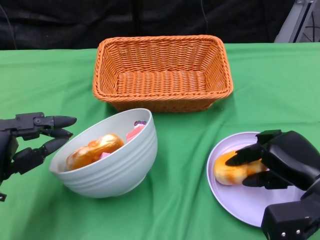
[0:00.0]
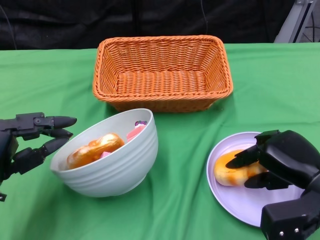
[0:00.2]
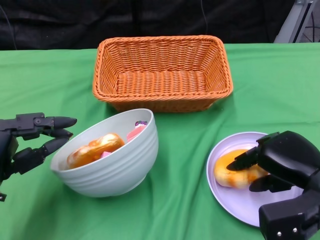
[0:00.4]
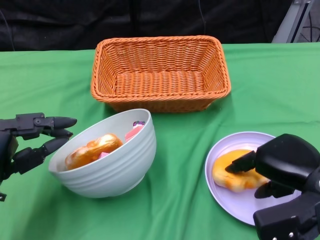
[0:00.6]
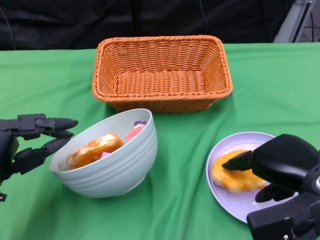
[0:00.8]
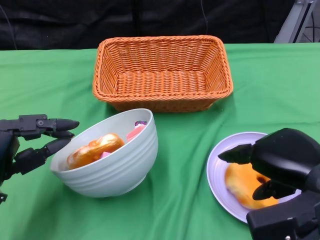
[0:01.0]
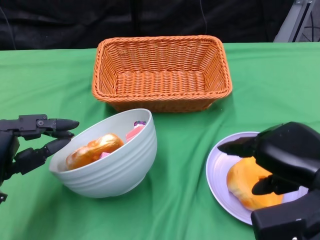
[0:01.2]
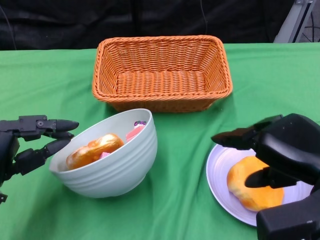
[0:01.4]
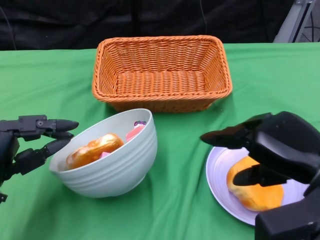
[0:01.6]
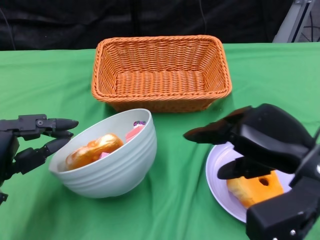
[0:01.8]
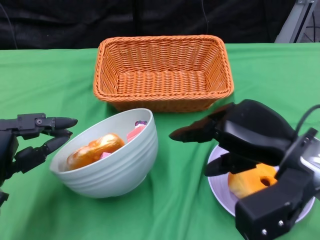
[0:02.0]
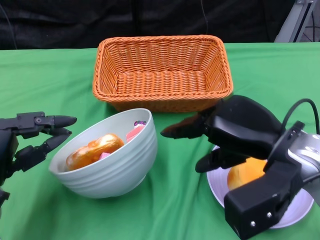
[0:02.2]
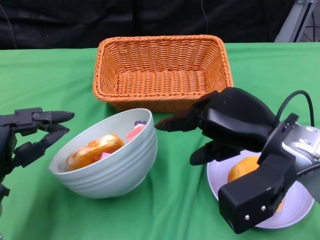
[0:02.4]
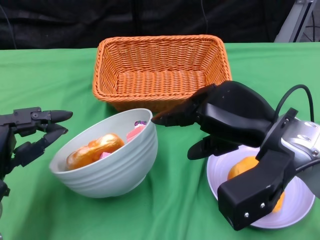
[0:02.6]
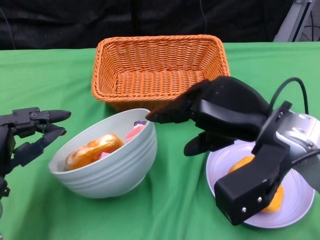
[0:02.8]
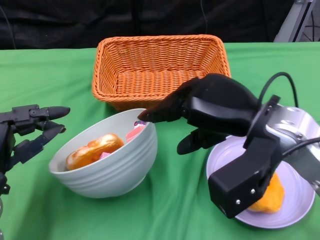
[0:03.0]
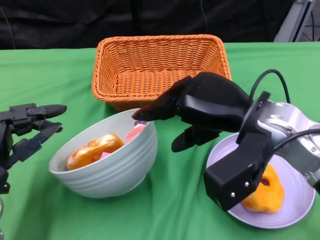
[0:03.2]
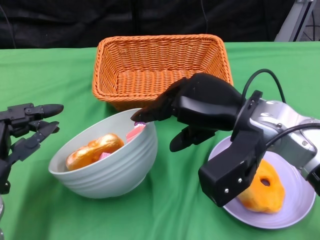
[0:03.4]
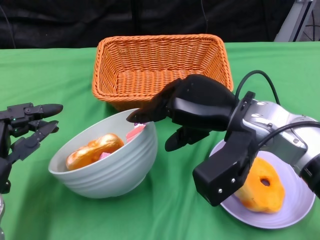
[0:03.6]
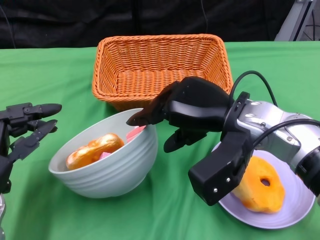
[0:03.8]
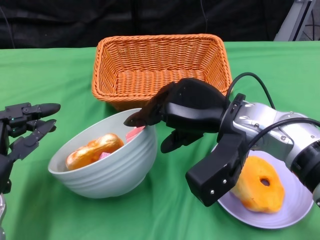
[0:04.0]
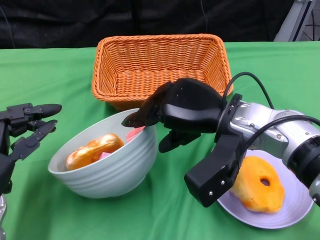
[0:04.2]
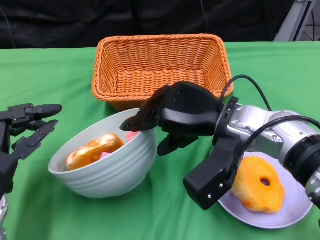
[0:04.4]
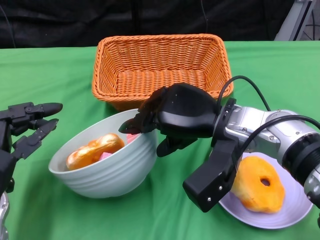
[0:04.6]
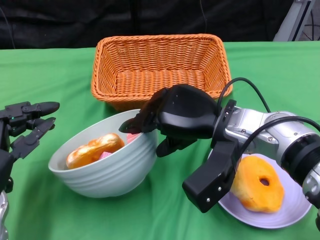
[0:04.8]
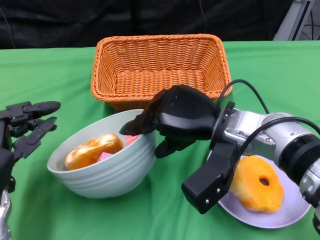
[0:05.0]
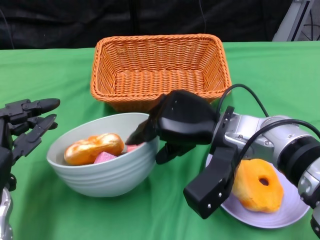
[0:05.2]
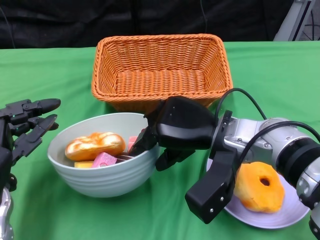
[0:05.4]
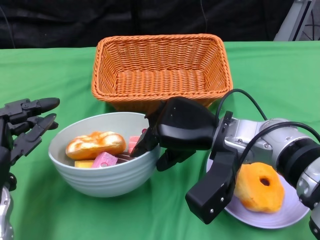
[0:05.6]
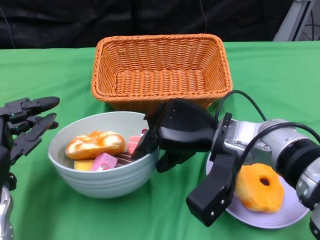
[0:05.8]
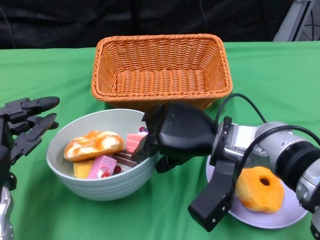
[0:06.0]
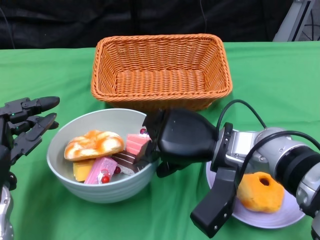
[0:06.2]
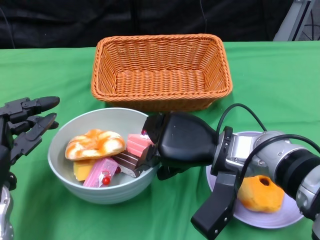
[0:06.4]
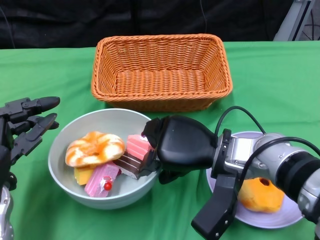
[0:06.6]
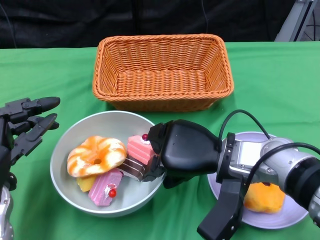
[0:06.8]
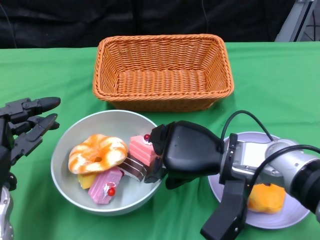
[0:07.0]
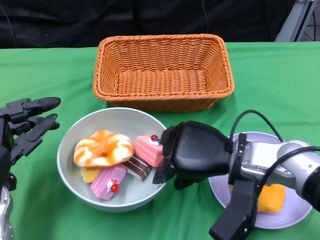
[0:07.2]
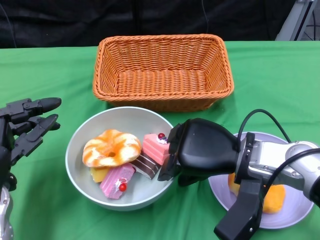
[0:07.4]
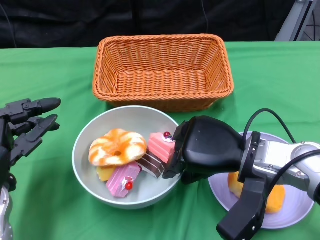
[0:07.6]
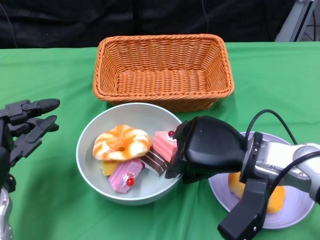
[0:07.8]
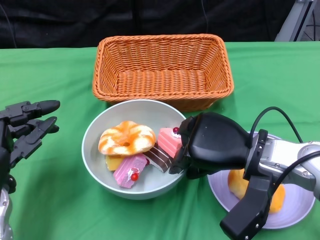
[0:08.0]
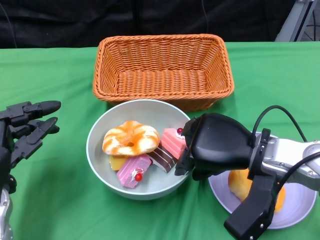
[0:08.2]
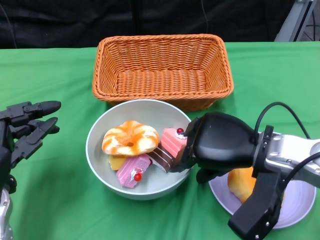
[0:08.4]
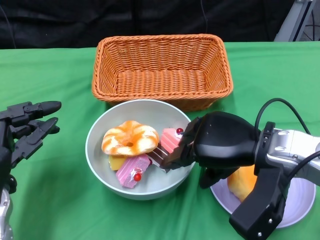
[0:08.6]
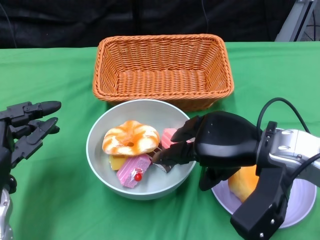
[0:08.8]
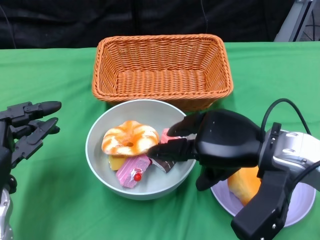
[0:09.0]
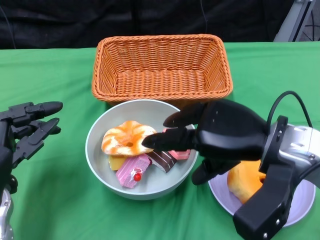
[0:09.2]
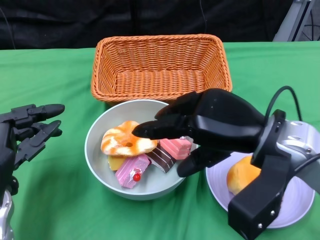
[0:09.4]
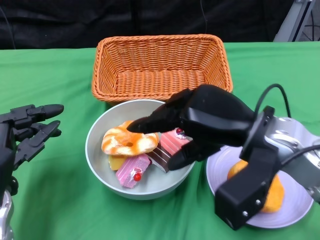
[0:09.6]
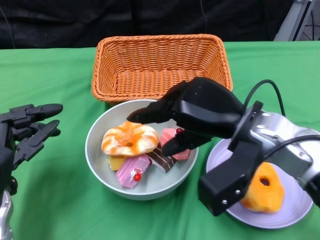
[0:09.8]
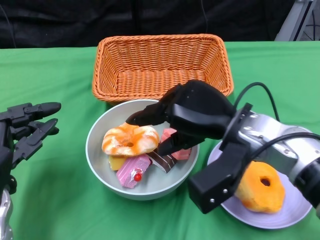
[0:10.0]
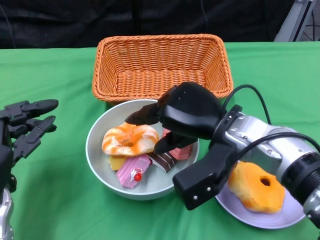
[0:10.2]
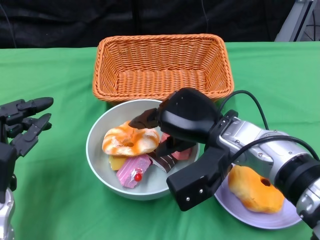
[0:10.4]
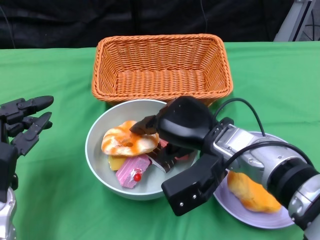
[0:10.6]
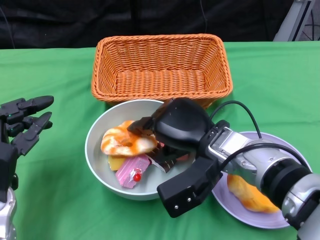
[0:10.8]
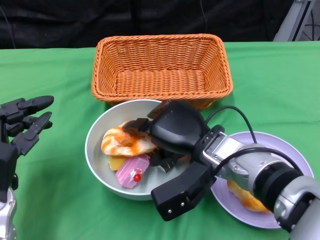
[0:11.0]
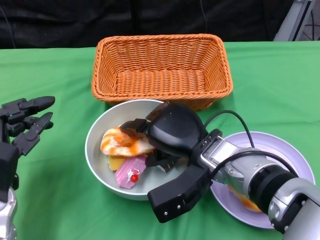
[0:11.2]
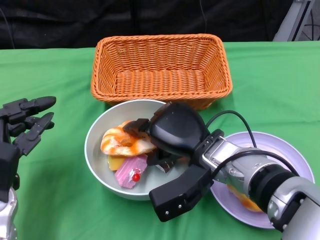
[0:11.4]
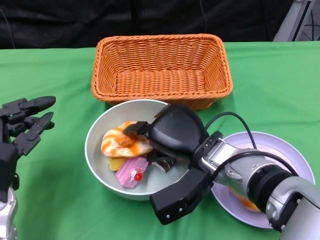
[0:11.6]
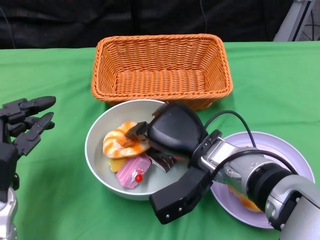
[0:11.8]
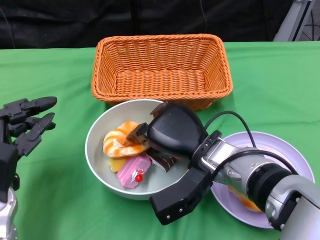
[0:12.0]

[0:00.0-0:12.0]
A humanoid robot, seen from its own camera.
0:00.0 to 0:01.6: The right hand goes about 10 cm upward.
0:01.6 to 0:03.0: The right hand travels to the left and forward by roughly 10 cm.
0:03.0 to 0:04.4: The right hand shifts by some 5 cm.
0:09.0 to 0:10.4: The right hand goes some 5 cm to the left.

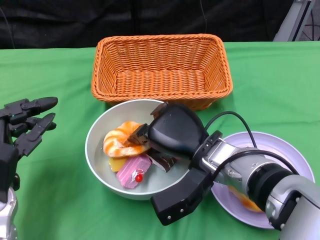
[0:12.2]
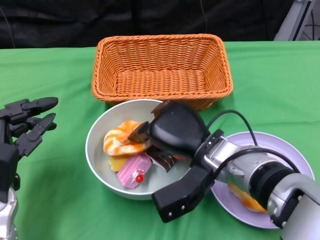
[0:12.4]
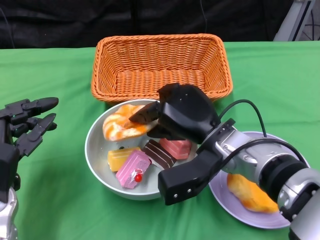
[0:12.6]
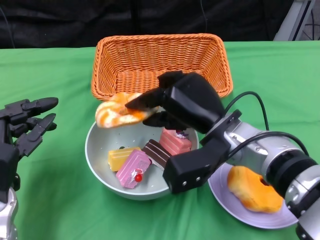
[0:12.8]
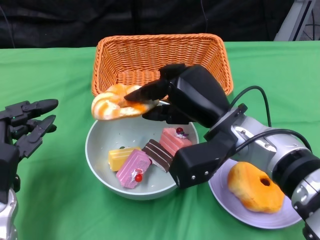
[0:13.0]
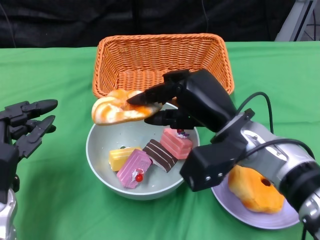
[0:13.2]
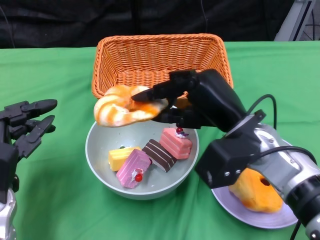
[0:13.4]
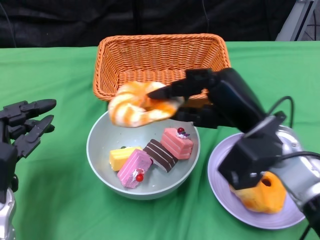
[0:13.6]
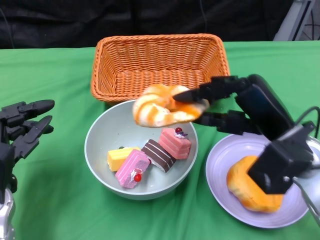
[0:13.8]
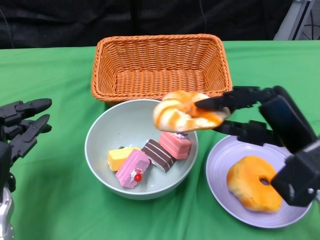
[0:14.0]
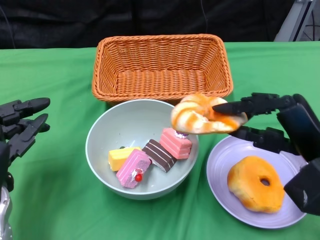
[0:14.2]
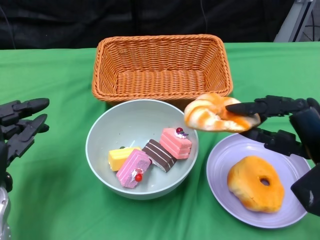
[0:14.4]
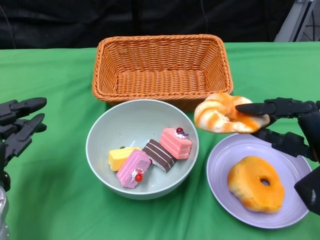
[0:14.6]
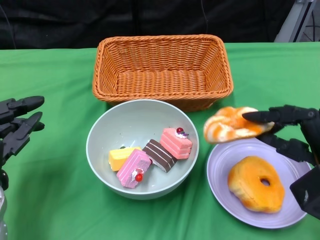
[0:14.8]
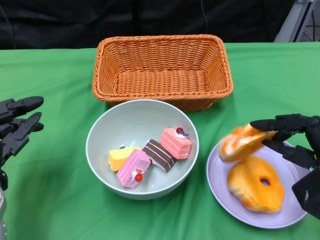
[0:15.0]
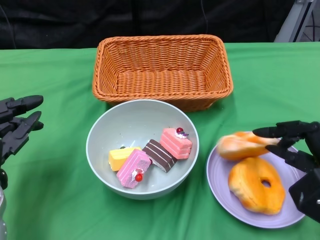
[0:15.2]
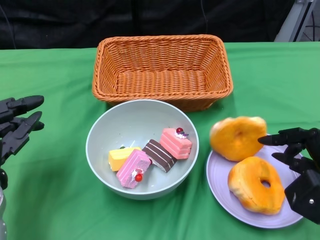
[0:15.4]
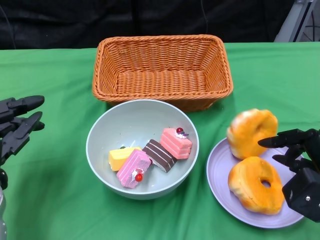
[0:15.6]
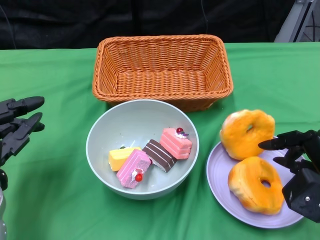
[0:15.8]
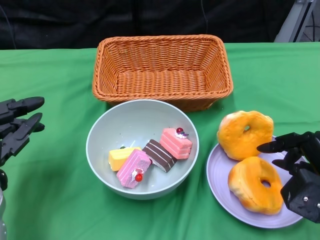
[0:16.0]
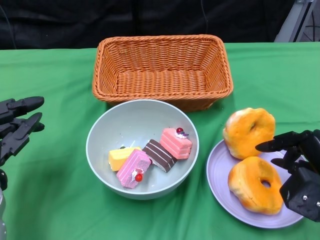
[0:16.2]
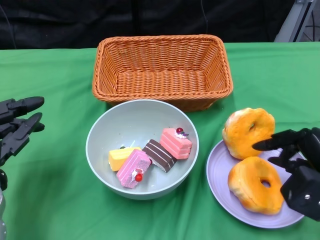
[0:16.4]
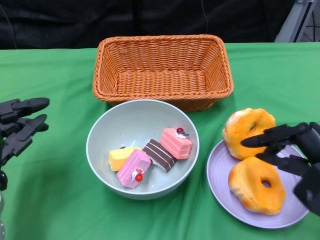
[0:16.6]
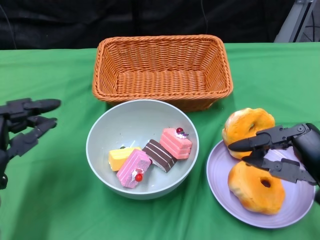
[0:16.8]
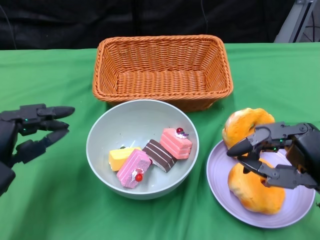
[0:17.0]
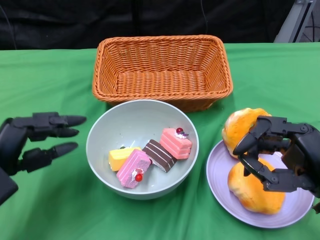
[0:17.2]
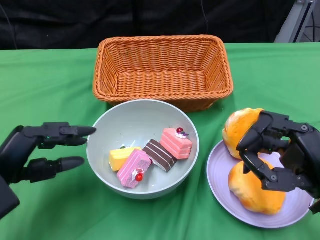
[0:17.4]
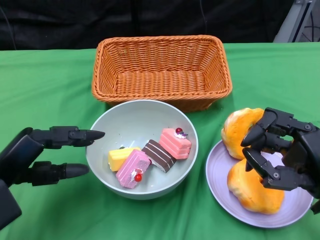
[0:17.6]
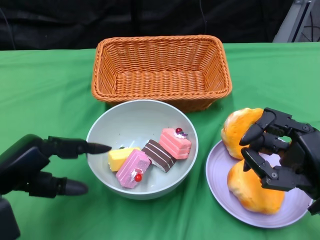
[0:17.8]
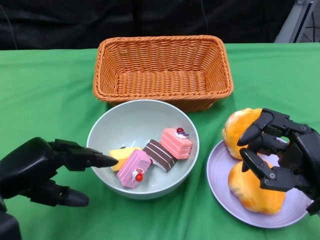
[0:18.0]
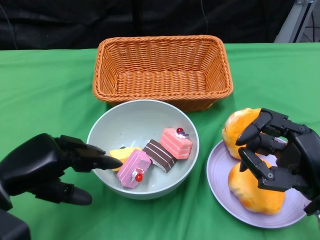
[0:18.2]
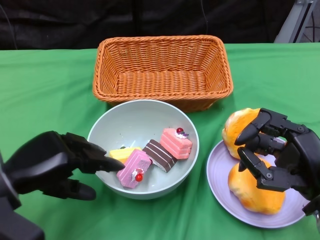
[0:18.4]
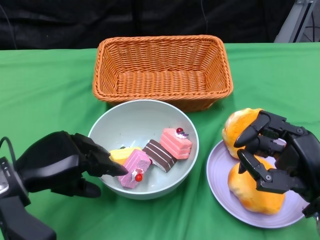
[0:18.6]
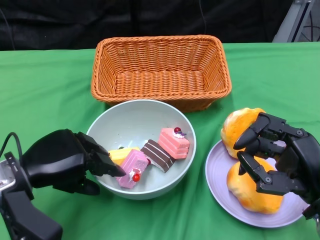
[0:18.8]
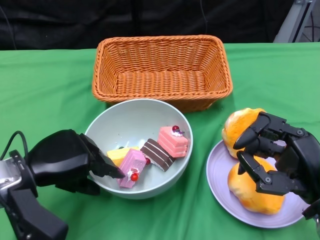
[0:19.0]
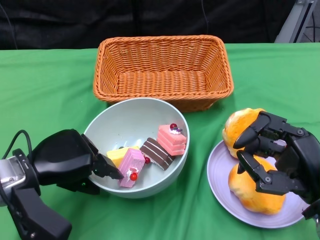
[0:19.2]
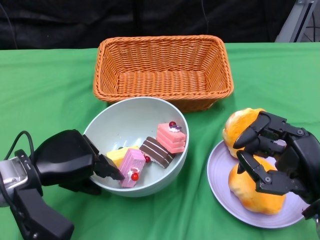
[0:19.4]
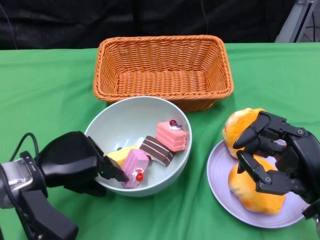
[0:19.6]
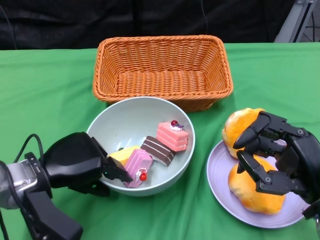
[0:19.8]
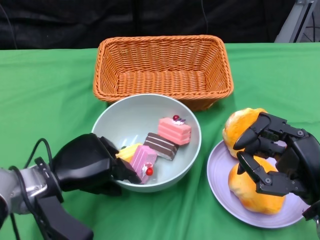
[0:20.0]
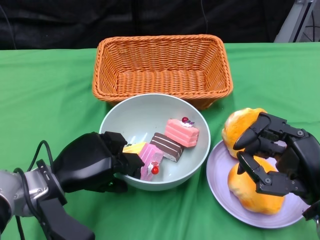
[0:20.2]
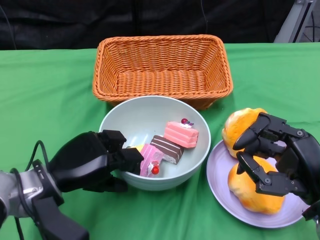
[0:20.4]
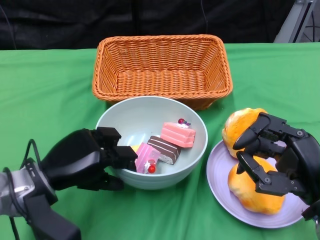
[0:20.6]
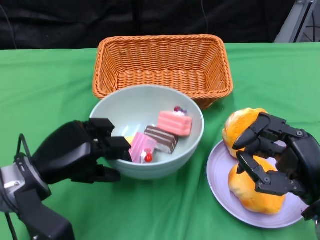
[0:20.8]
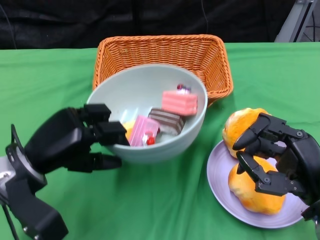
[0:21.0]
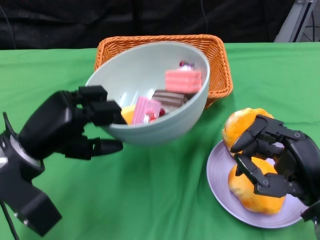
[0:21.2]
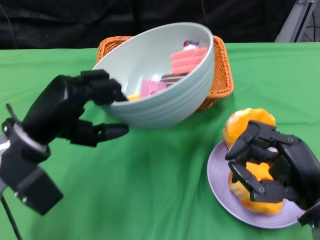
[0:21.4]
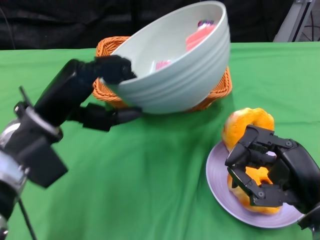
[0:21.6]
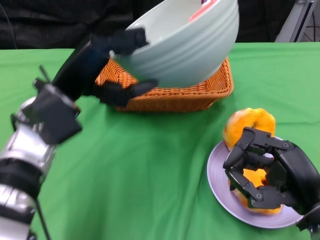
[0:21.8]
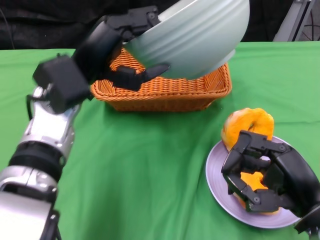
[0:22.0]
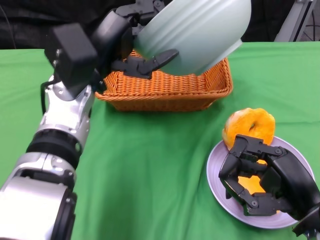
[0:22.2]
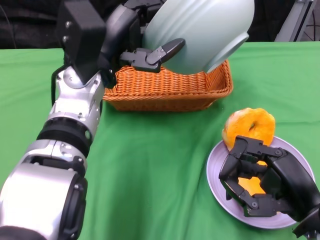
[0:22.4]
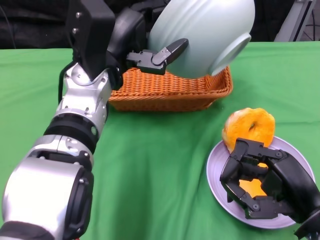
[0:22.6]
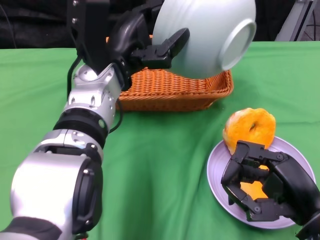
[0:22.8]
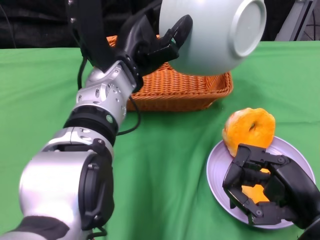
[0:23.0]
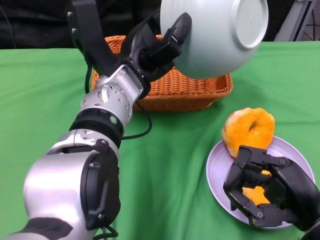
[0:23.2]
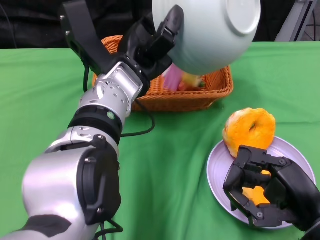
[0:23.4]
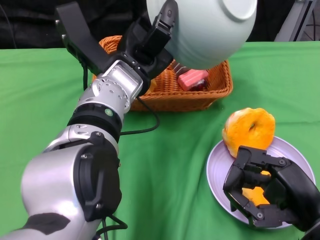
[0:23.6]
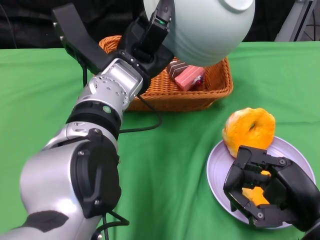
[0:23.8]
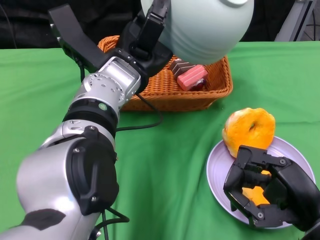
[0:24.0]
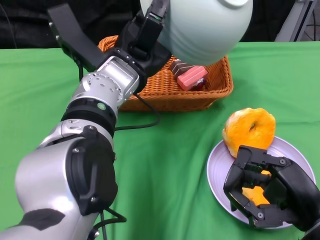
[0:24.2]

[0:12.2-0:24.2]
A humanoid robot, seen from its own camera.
Step, 0:12.2 to 0:16.4: Pick up the bread with the right gripper and place it on the plate.
Step, 0:16.6 to 0:20.2: Grasp the bowl with the left gripper.
0:12.2 to 0:13.8: The right hand travels to the right and upward by roughly 10 cm.
0:13.8 to 0:15.2: The right hand goes approximately 10 cm to the right and downward.
0:15.2 to 0:16.6: The hands move only a little.
0:18.2 to 0:19.8: The left hand moves some 5 cm.
0:21.2 to 0:22.6: The left hand goes roughly 15 cm to the right, forward and upward.
